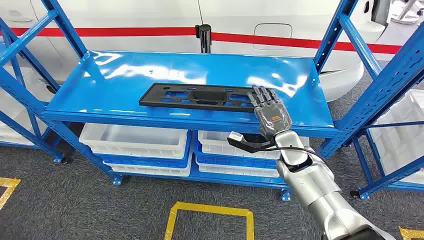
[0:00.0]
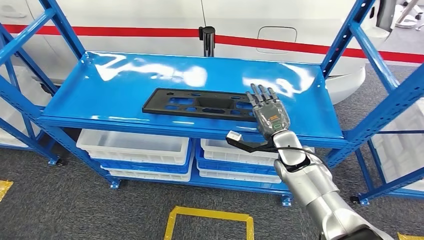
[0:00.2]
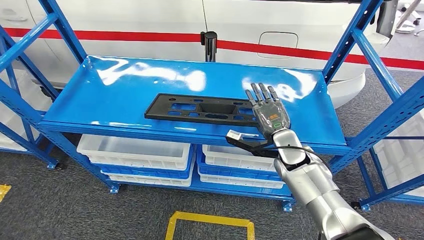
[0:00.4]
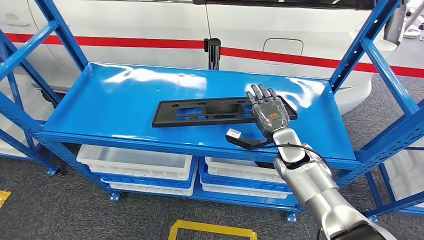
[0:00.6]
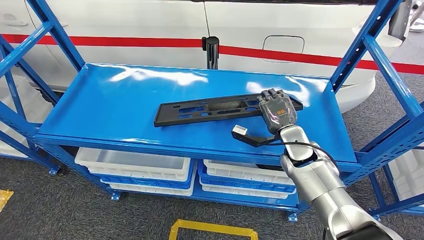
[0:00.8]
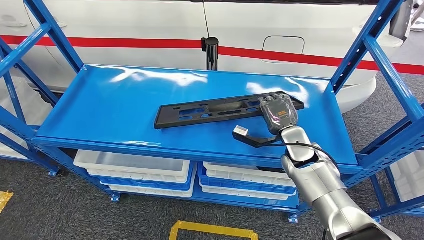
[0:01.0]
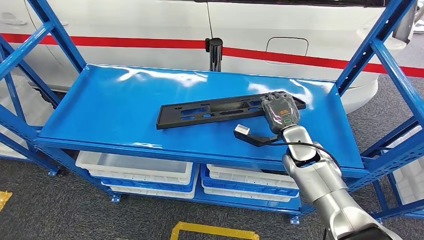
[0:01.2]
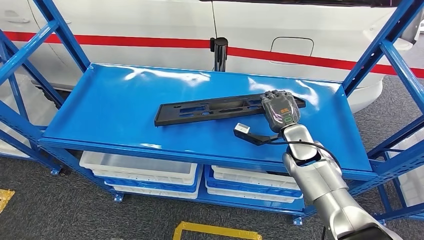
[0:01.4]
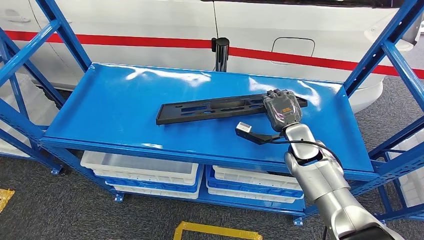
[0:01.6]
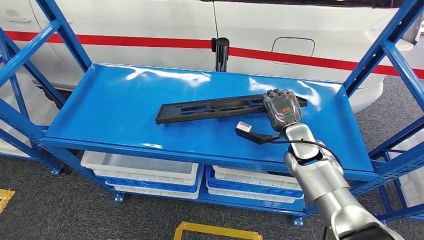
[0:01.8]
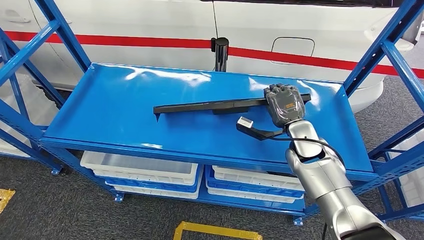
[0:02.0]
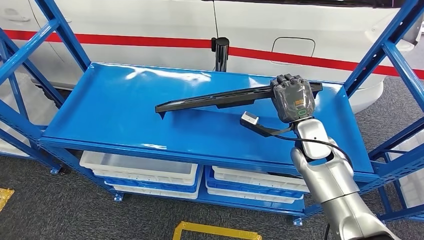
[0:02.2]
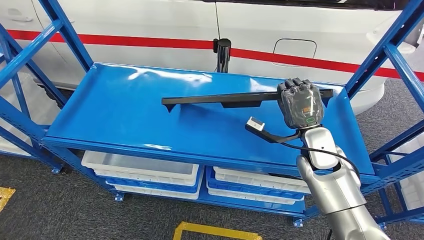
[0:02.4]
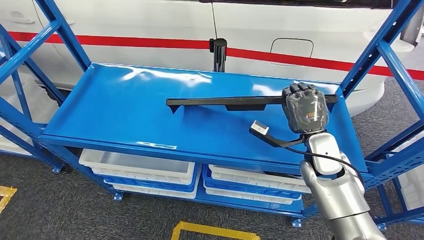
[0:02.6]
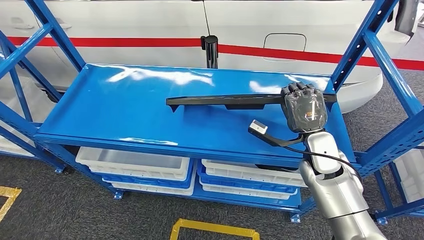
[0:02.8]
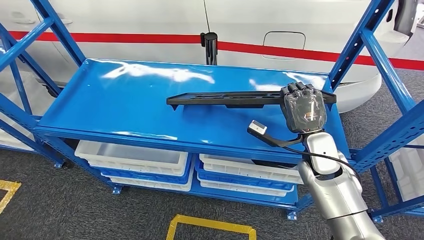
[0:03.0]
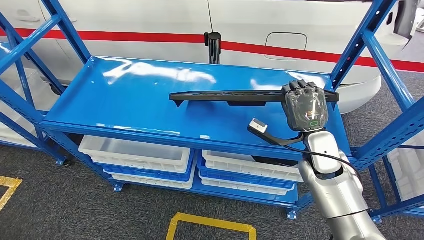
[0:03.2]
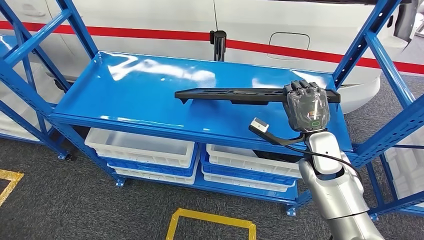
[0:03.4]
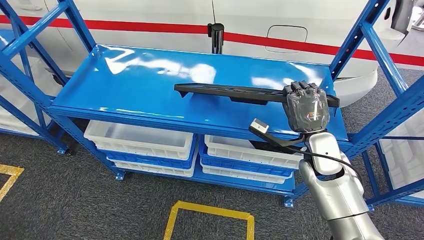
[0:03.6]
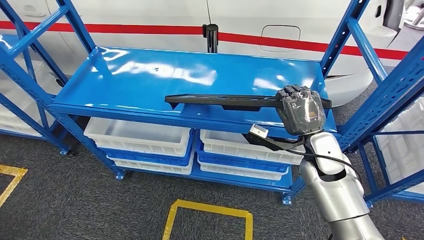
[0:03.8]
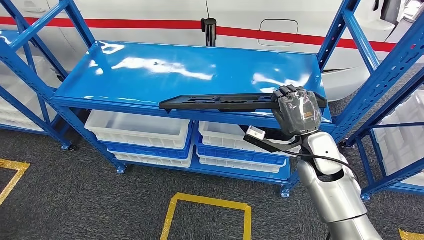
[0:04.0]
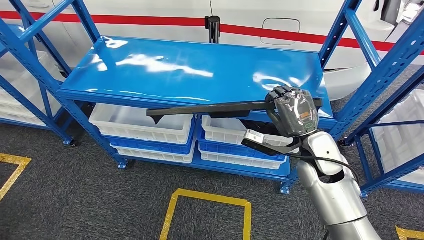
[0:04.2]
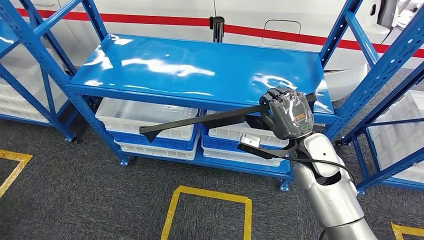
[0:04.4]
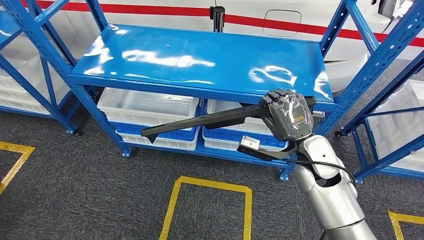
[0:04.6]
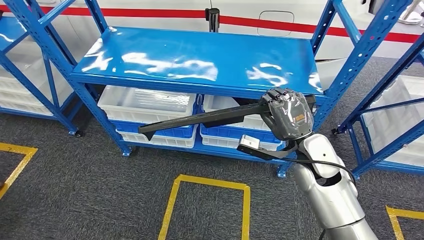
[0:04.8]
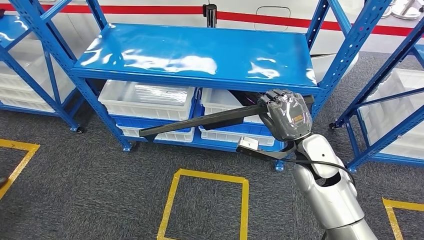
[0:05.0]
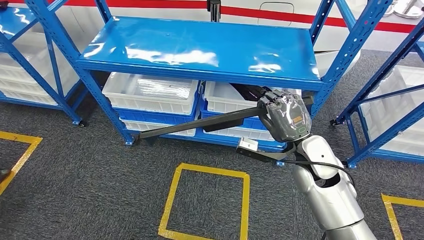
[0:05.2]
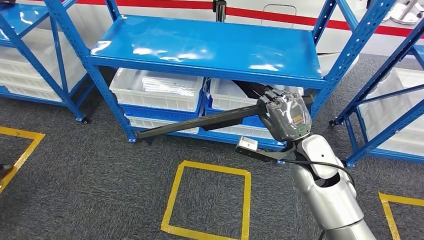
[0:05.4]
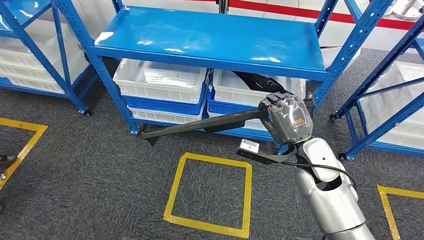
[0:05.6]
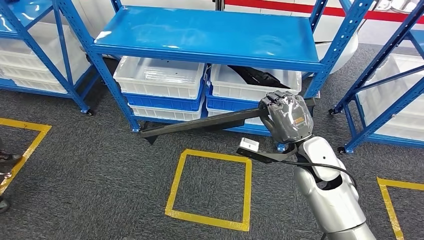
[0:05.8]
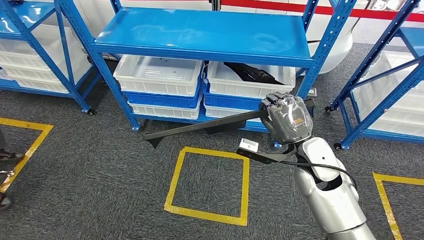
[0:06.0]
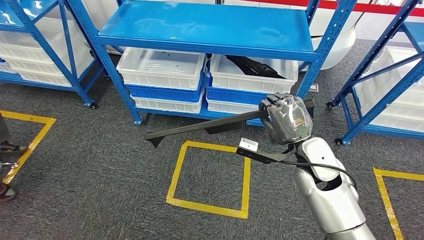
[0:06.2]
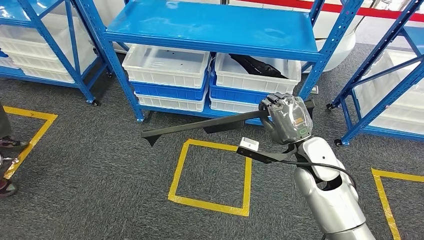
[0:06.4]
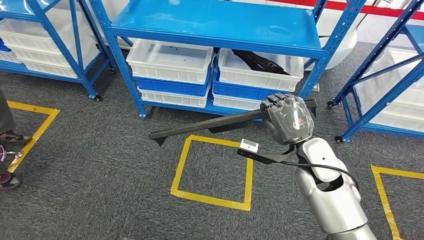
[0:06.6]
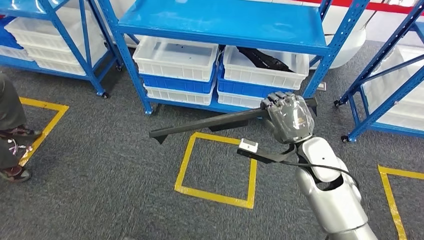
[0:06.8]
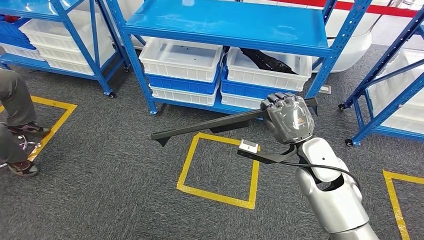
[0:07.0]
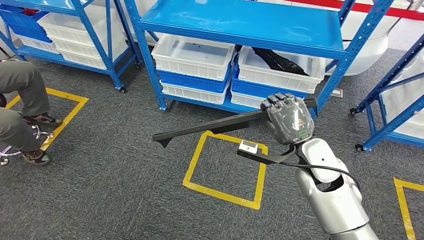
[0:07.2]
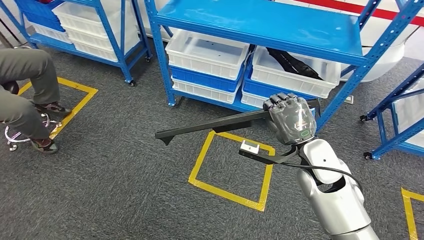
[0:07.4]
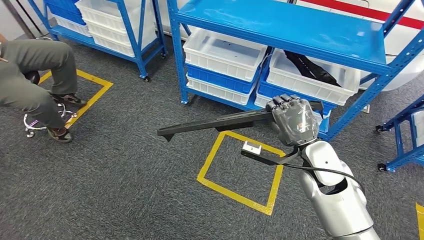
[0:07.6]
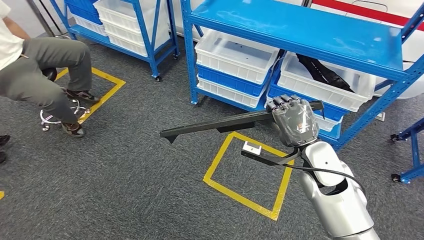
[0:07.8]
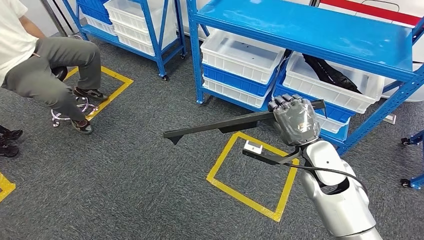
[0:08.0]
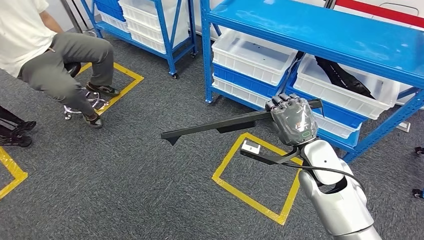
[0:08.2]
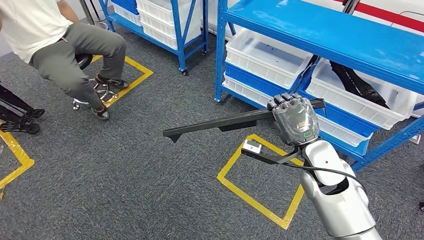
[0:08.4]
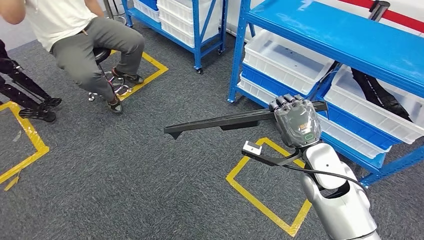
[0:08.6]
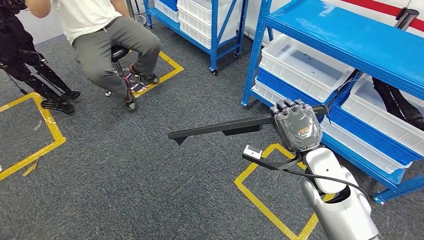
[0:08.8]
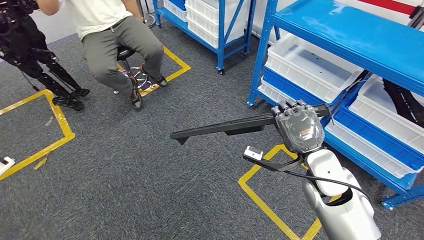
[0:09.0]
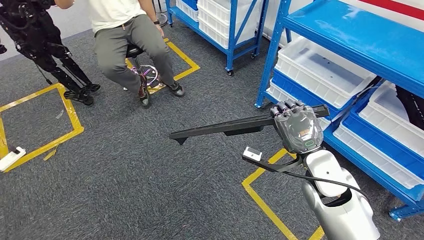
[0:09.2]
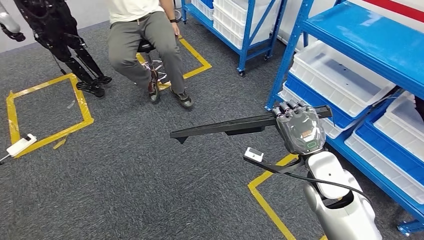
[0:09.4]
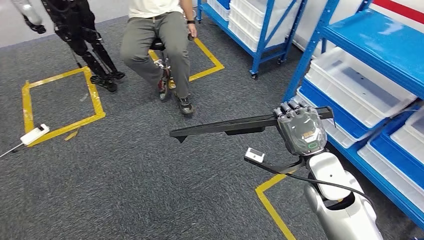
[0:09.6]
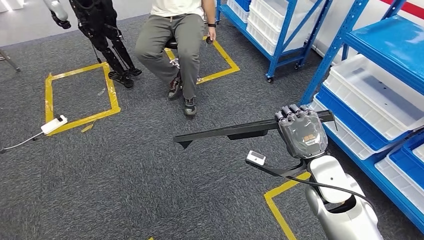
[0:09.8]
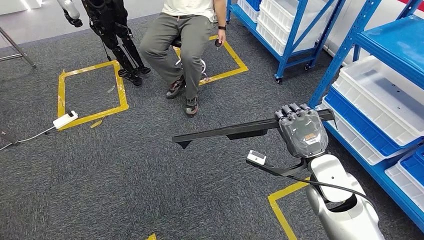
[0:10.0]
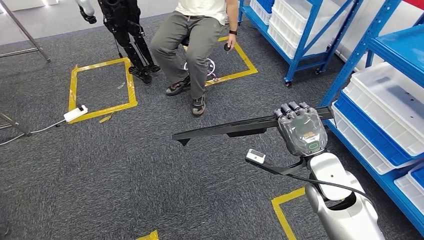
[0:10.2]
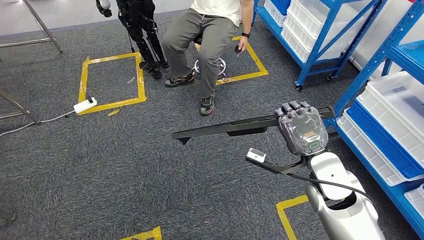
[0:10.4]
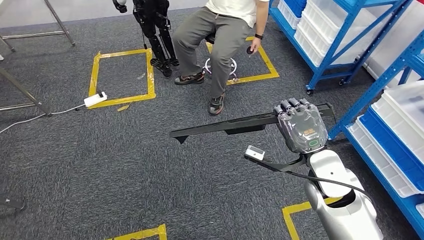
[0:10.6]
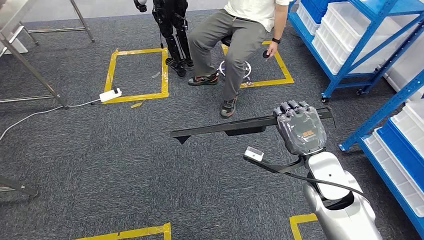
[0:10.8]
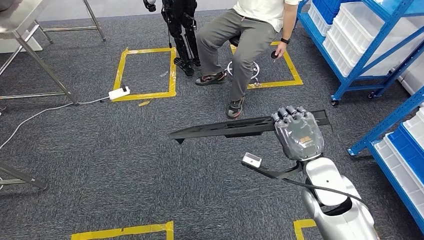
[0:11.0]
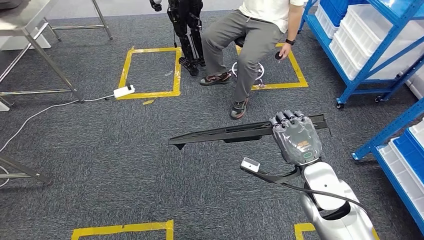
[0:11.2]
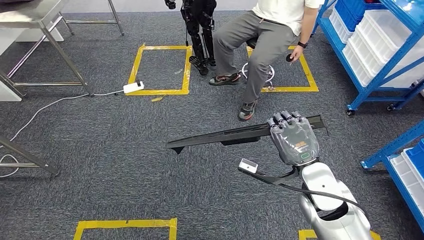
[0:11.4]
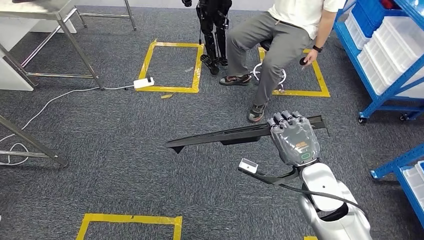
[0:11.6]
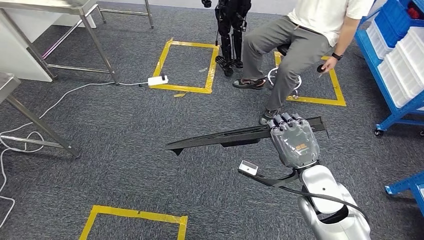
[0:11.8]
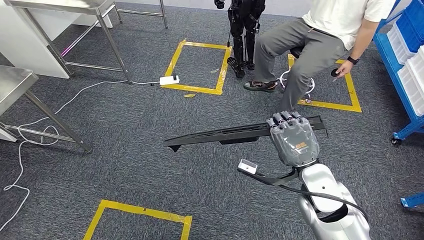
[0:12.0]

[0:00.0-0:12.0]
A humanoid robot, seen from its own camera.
Step, 0:00.0 to 0:05.6: Pick up the large material from the shelf.

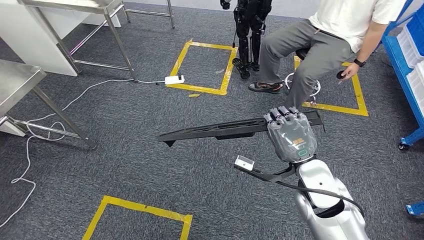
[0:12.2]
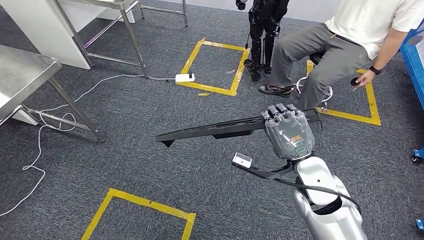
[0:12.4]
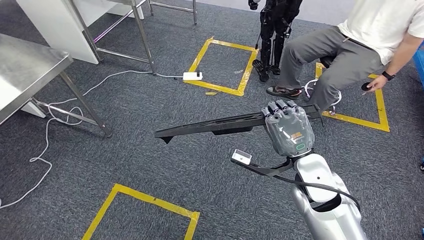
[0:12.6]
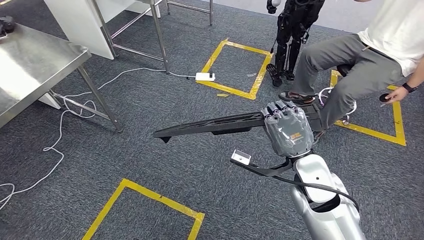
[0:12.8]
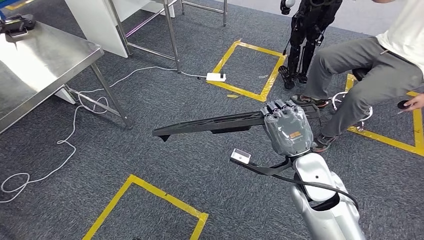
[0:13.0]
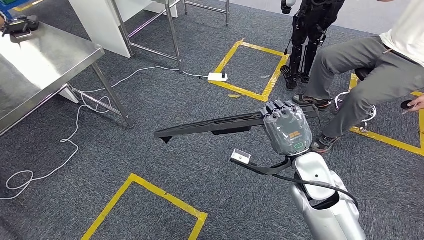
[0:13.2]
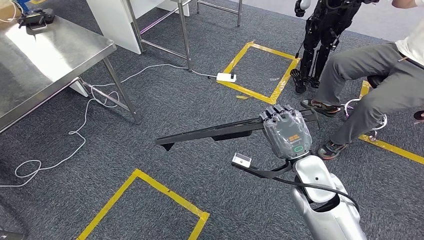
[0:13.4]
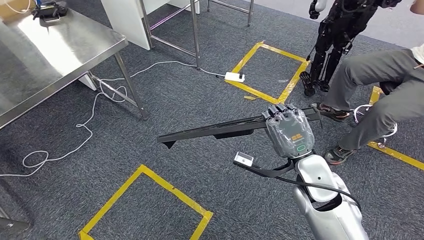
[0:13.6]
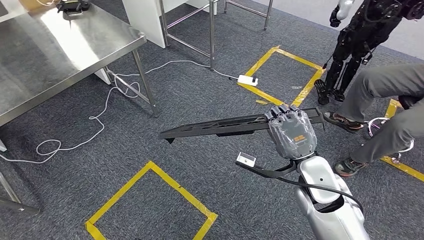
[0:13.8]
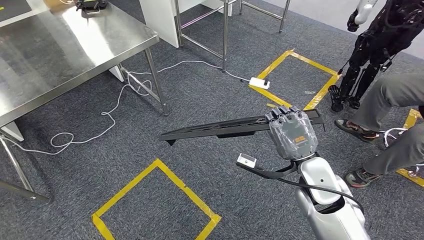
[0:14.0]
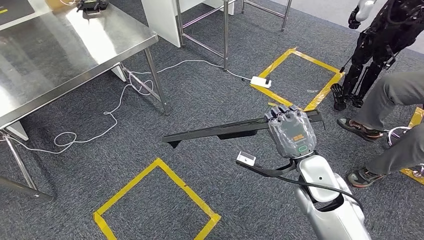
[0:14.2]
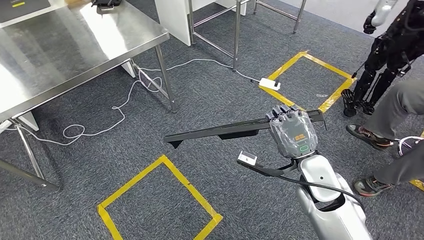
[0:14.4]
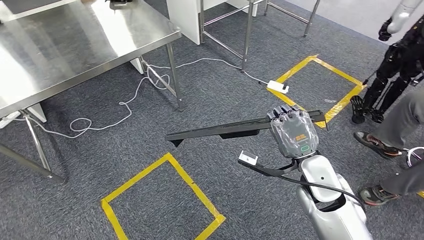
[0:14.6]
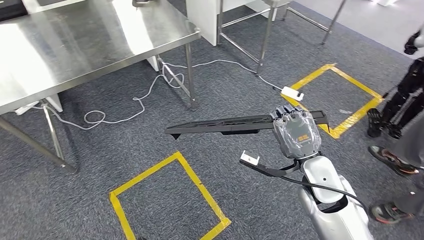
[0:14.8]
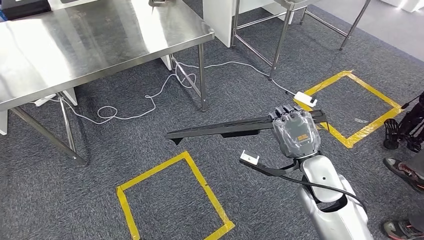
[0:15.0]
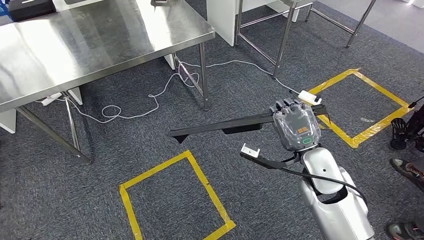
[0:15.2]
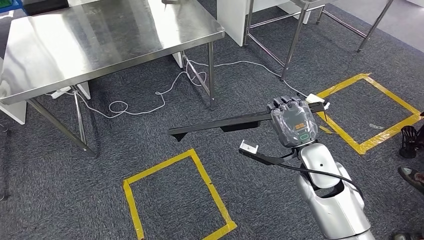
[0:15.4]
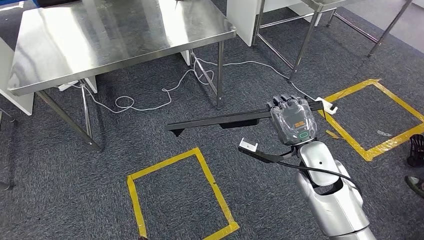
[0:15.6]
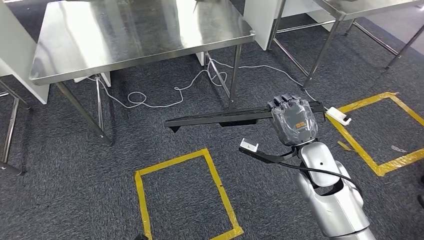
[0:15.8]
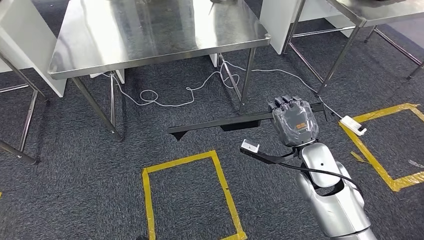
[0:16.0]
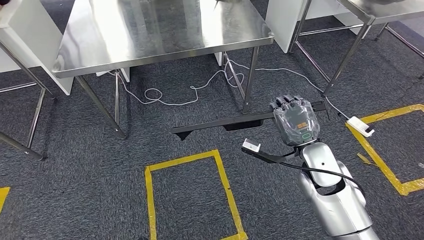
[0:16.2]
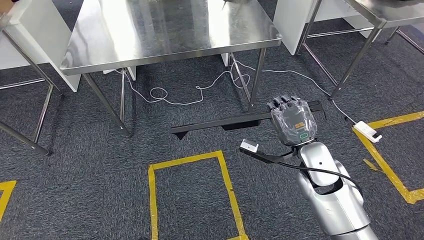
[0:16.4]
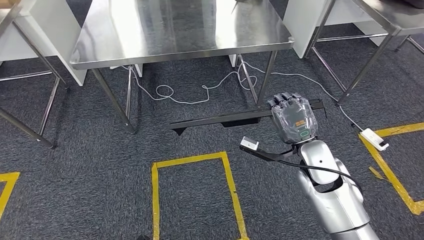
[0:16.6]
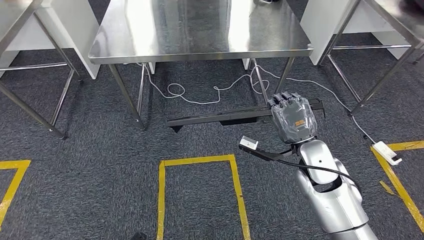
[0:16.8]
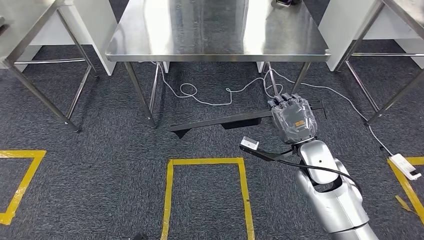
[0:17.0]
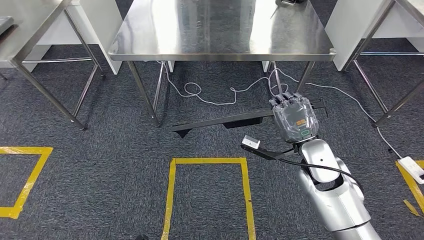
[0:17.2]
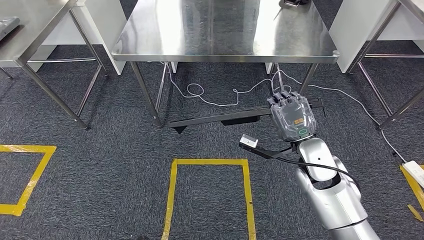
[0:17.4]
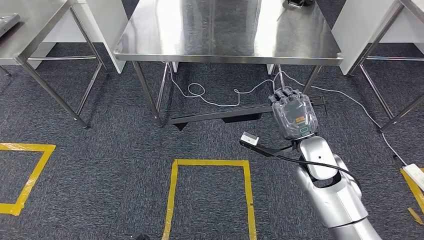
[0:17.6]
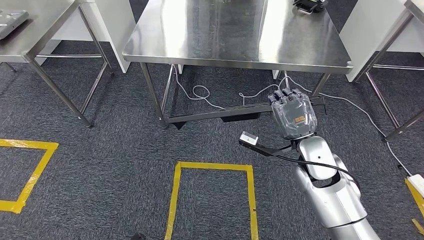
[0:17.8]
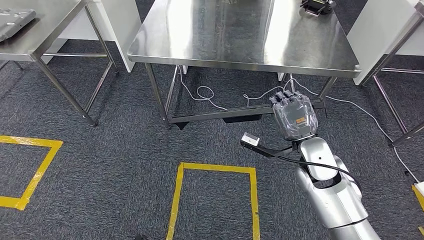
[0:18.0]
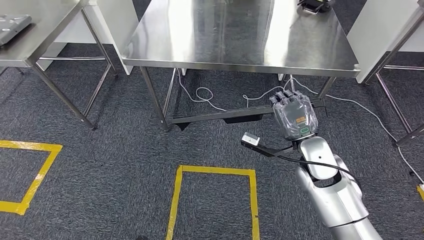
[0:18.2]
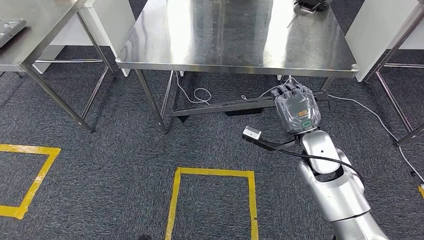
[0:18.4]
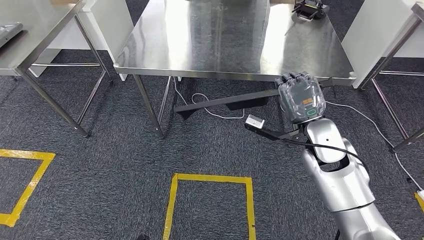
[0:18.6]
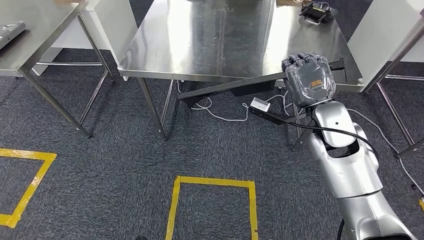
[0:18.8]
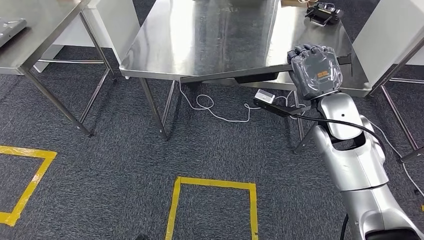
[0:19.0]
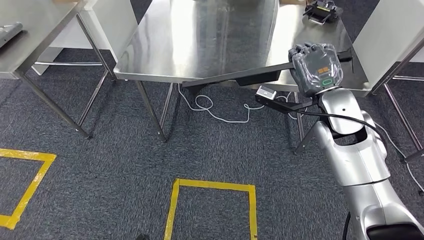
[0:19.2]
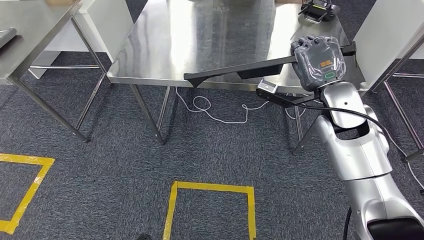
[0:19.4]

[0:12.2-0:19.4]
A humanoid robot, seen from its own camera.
Step, 0:12.2 to 0:18.4: Move the large material to the workbench.
